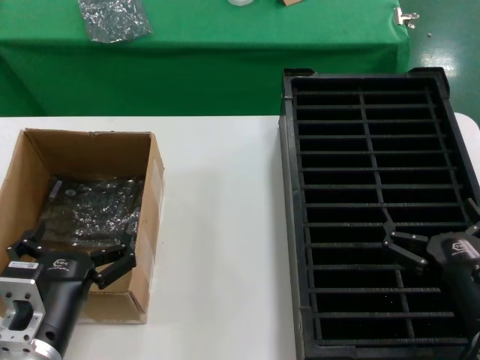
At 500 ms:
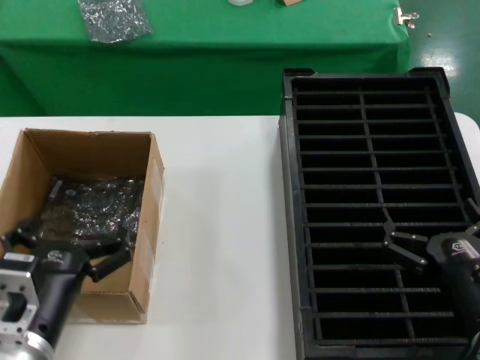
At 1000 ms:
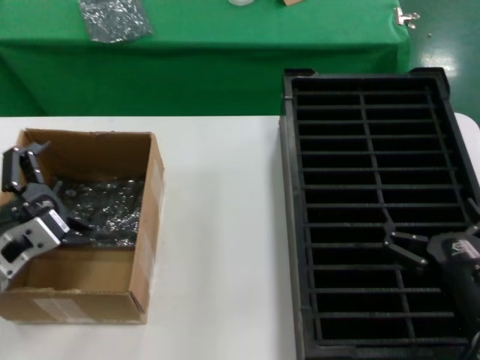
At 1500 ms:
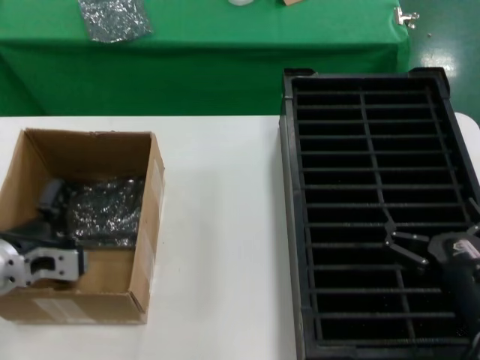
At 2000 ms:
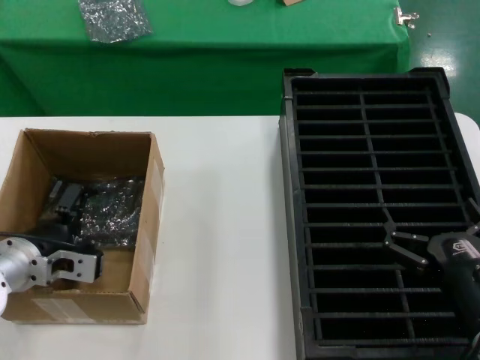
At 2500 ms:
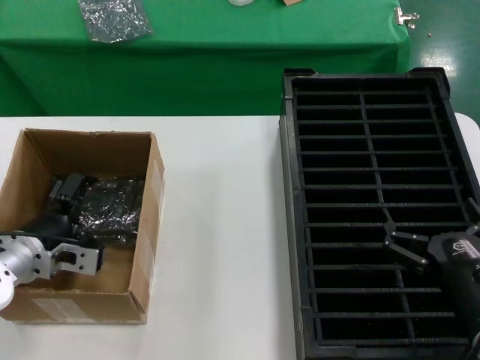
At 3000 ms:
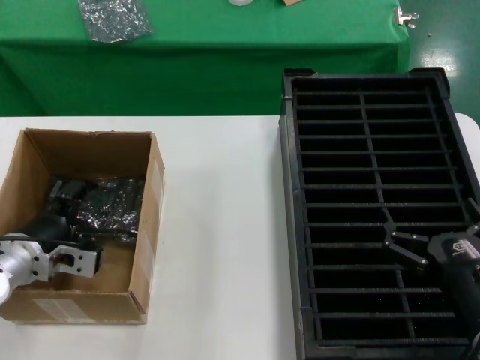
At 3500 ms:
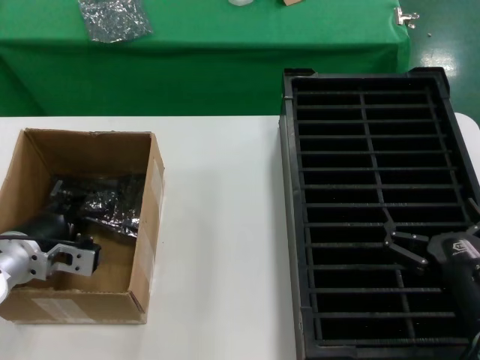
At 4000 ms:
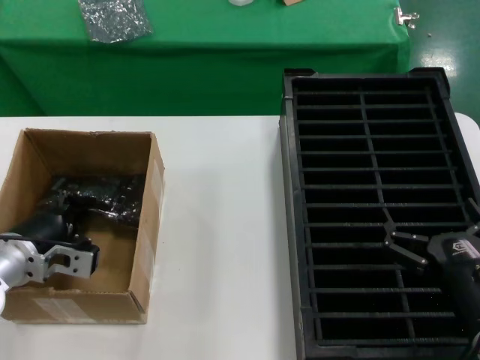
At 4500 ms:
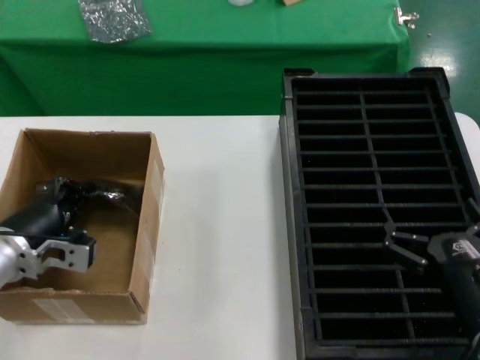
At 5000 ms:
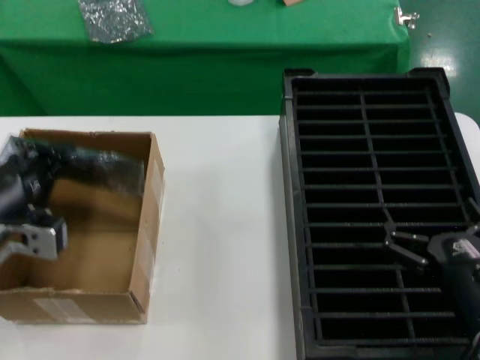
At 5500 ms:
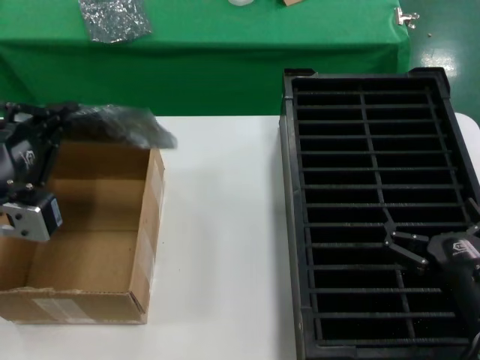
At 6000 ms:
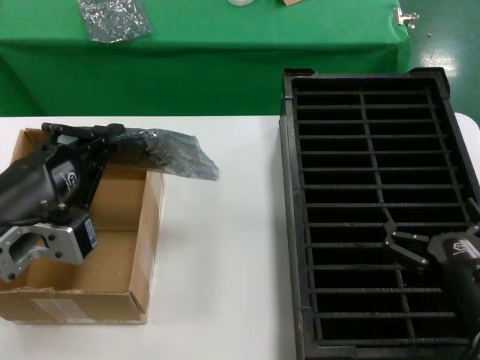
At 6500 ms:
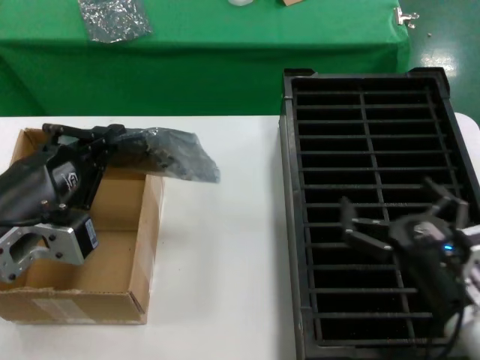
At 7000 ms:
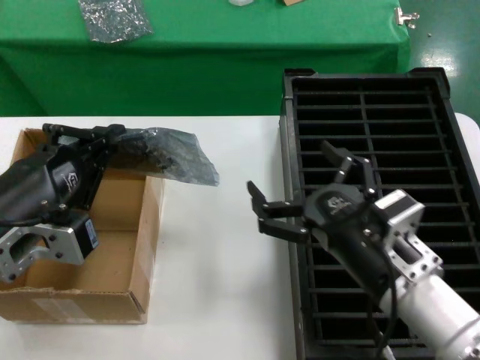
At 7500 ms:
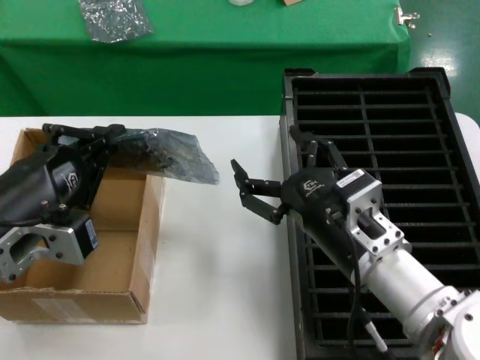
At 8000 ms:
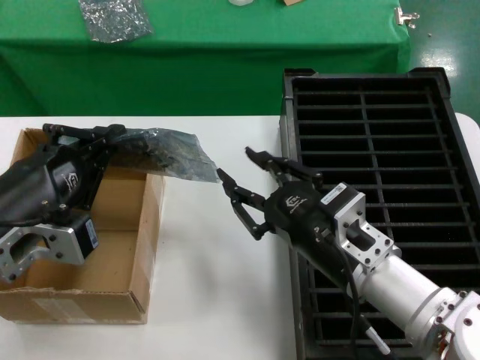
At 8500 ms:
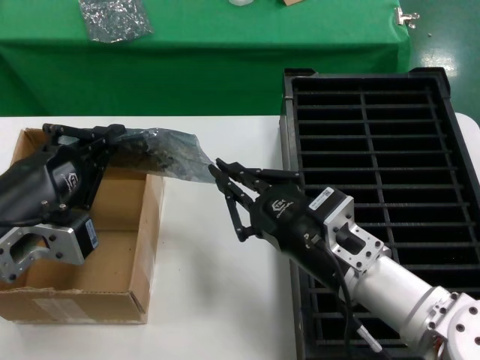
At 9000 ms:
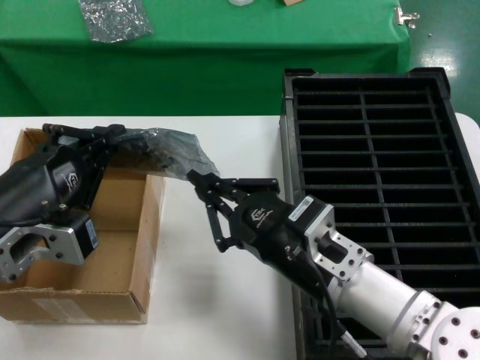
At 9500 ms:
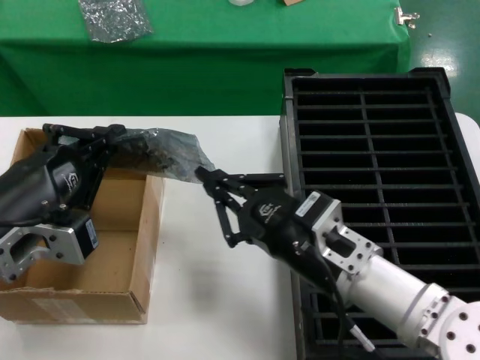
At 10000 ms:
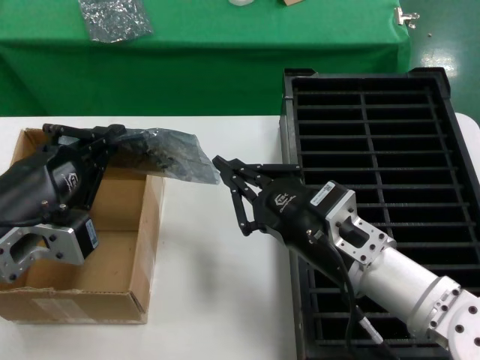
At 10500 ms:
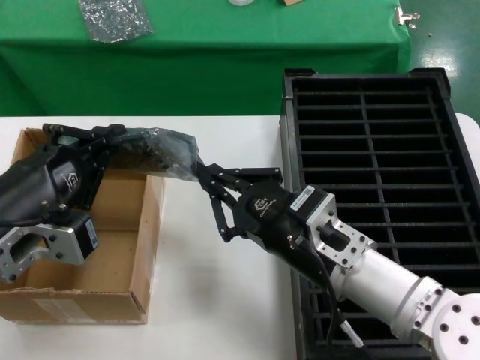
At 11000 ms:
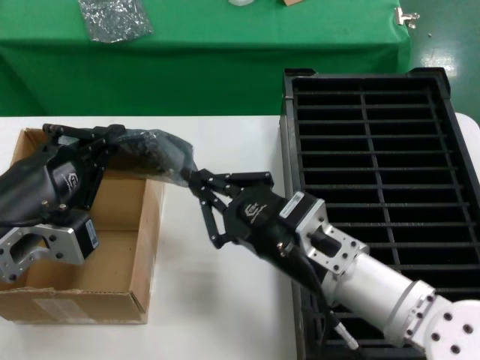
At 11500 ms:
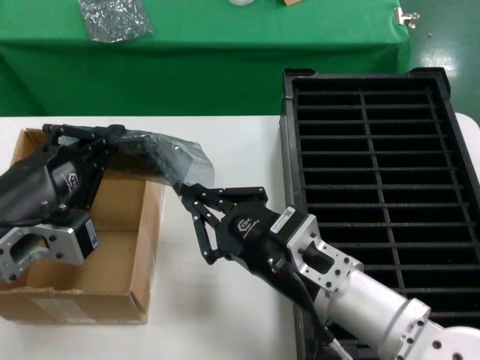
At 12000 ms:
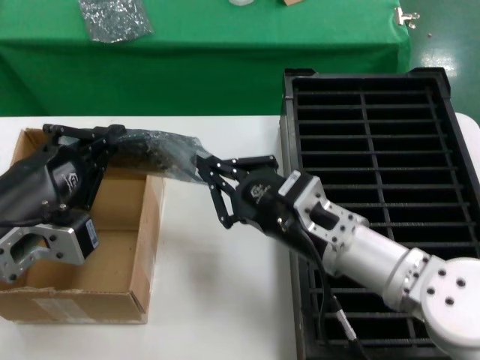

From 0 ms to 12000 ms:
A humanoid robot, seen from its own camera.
Task of the whole recording: take out graphics card from box remove packaging put into black container.
Step, from 0 ms to 4000 ms: Grasp the bag.
Step, from 4500 ms to 6000 ms: Lift the bag.
From 0 ms to 2000 ms: The left hand shifts about 20 cm forward and to the left.
From 2000 ms to 4000 ms: The hands make only small movements.
From 4000 ms to 6000 ms: The left hand moves backward and upward, about 20 cm.
From 6000 ms to 8000 ms: The right hand is displaced to the left, upward and forward by approximately 15 cm.
From 8000 ms to 12000 ms: The hands stay close to where they were, moving slightly.

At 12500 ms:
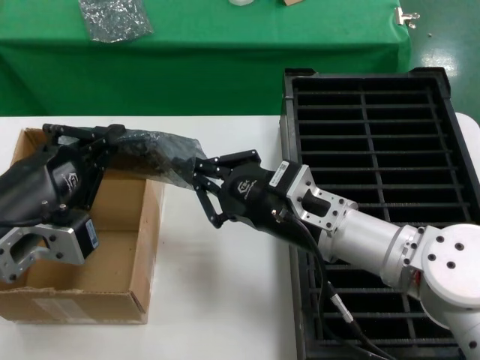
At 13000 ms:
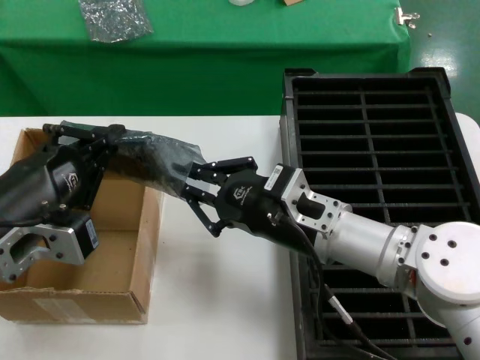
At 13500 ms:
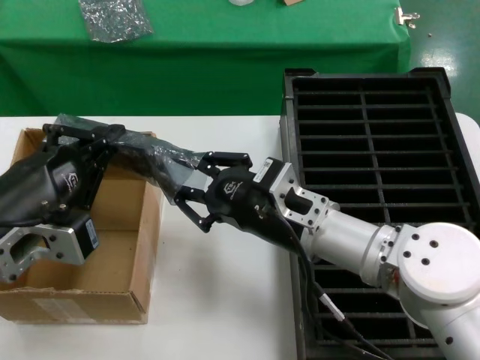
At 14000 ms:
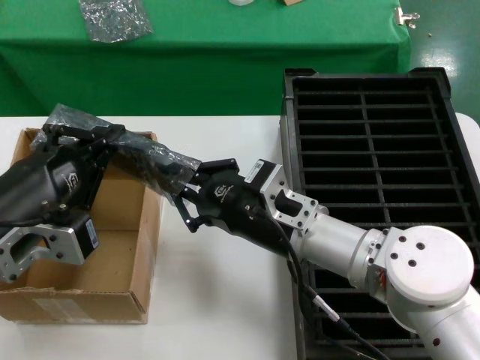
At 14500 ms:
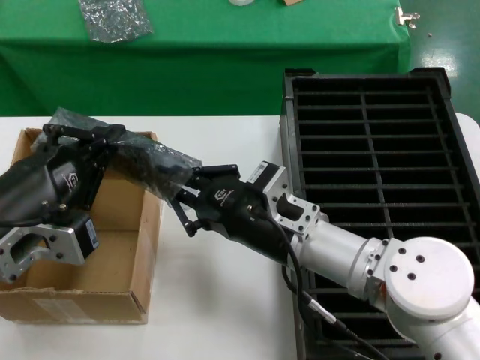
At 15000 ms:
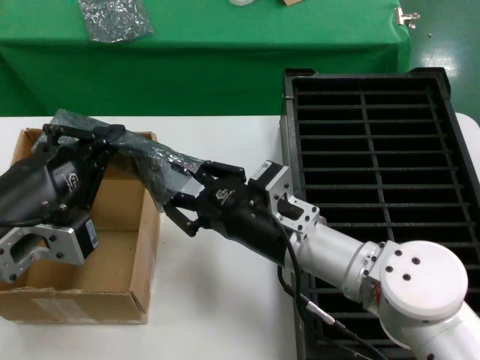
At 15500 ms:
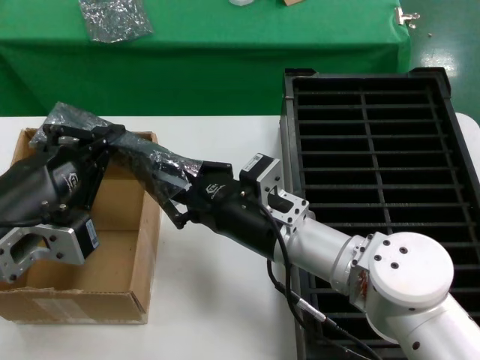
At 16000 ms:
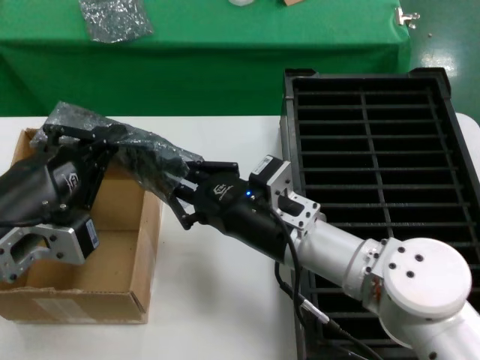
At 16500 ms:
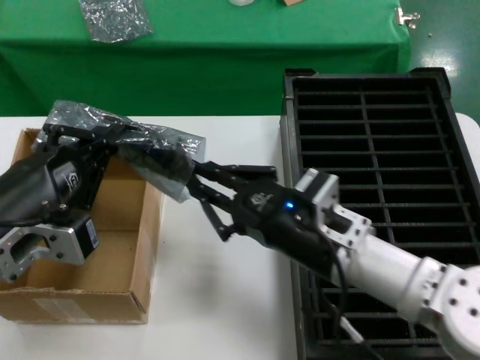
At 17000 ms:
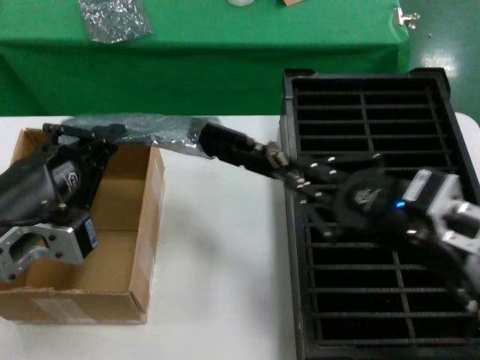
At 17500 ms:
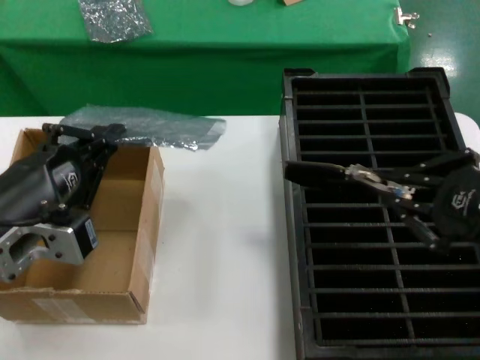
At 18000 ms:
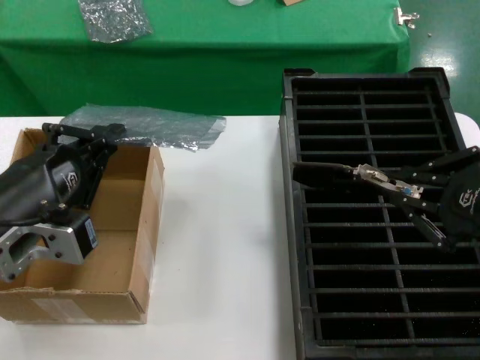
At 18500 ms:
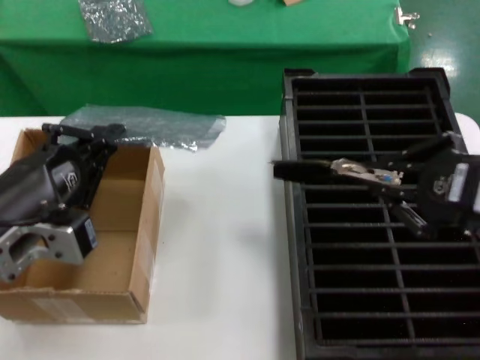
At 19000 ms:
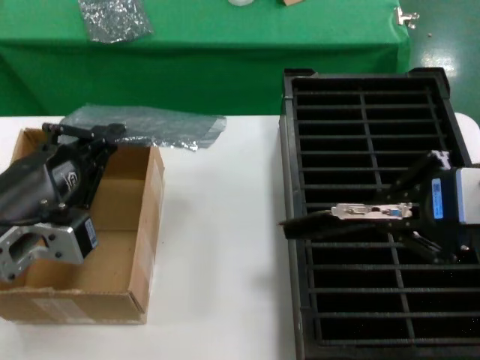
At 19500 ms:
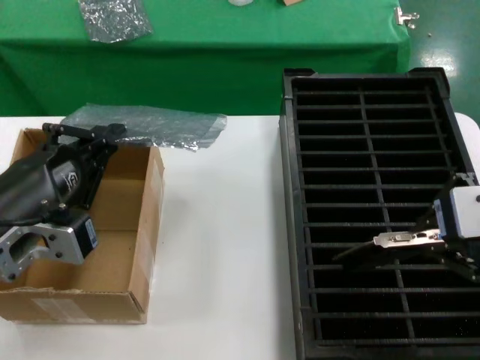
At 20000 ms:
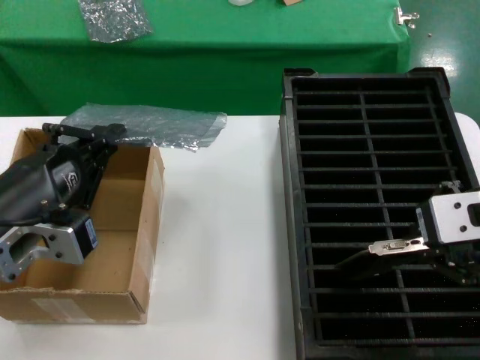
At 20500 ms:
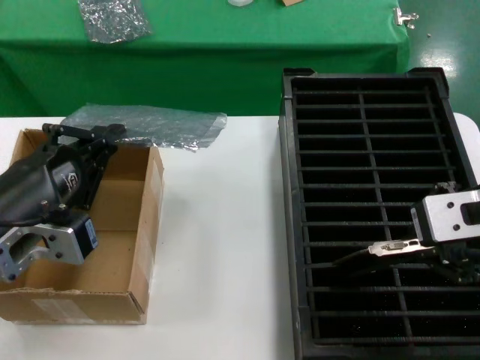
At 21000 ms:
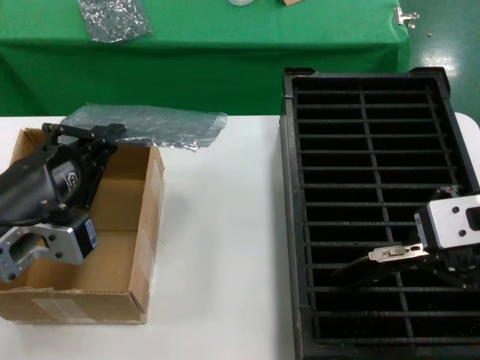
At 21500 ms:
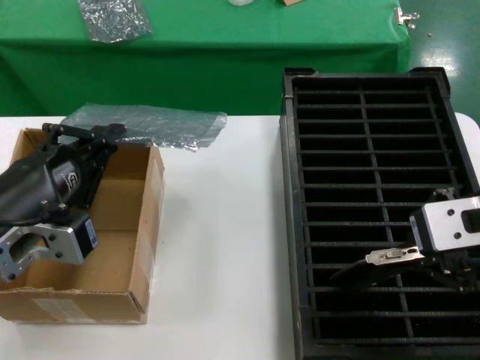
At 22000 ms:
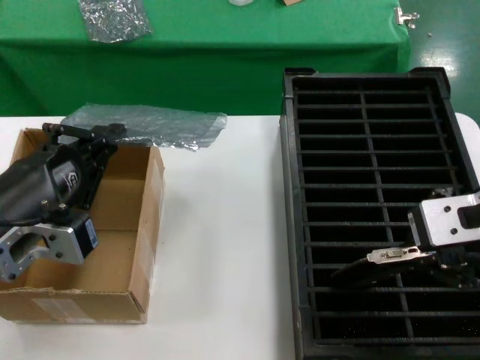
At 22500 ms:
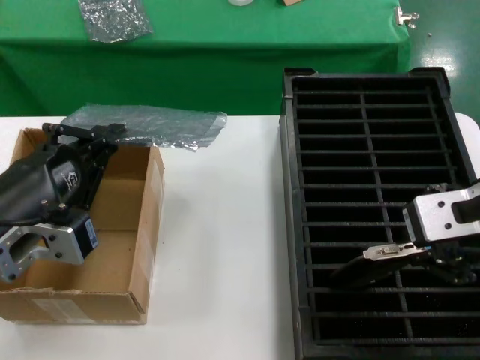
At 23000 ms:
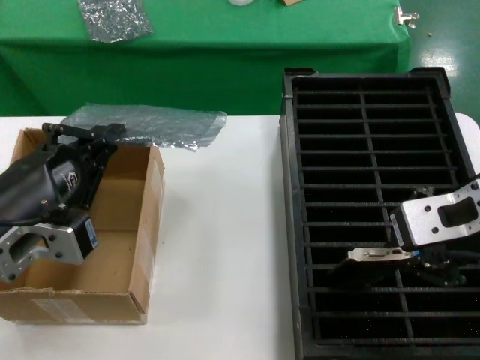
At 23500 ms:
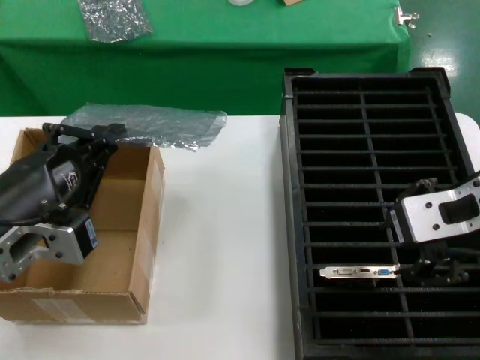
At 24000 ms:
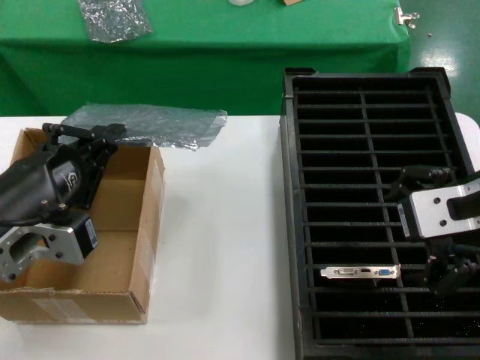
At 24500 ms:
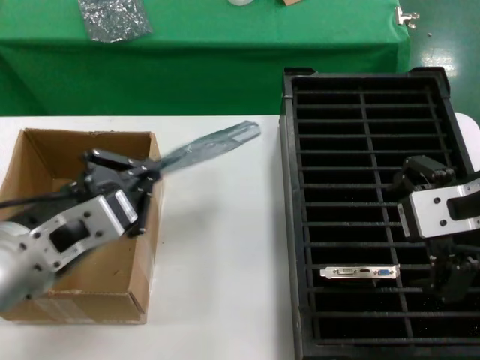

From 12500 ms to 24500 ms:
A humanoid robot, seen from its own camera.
Task of the whole recording: take out graphics card from box remove packaging put into black container.
Step, from 12500 ms to 17000 ms: Take out the hard disk of the bag.
Step, from 17500 ms to 23000 ms: Place the hard disk in the hard disk enclosure.
From 12500 ms to 14500 ms: The hands move only a little.
From 14500 ms to 16500 ms: The right hand changes place by approximately 5 cm.
From 16500 ms to 18500 ms: The right hand travels upward, to the right and backward by some 25 cm.
From 18500 ms to 20500 ms: The right hand ends up about 5 cm from where it was.
From 20500 ms to 22500 ms: The hands stay close to where they were, moving slightly.

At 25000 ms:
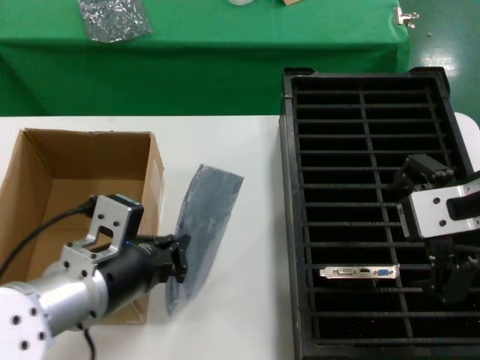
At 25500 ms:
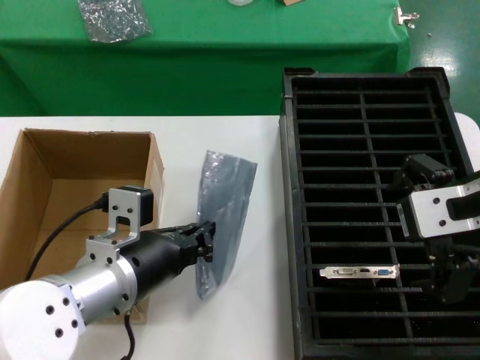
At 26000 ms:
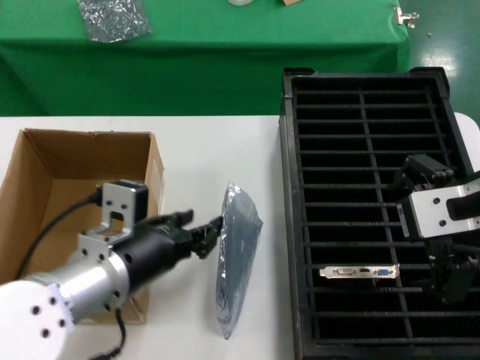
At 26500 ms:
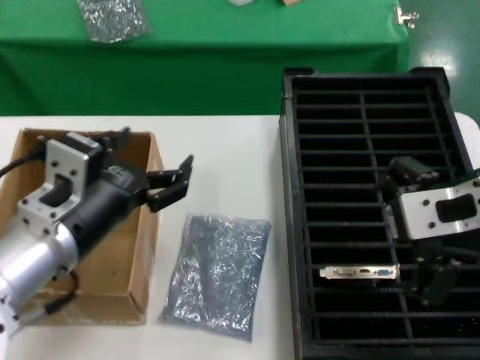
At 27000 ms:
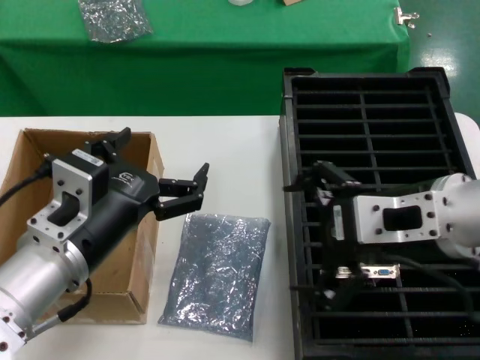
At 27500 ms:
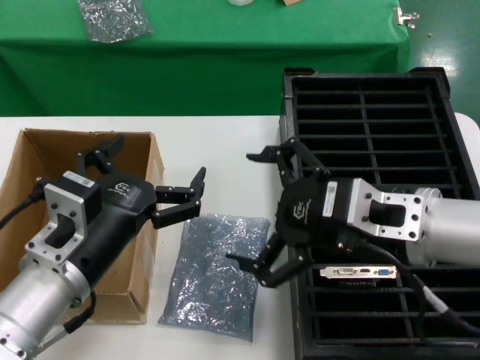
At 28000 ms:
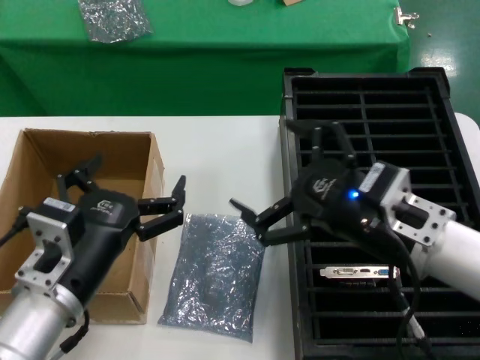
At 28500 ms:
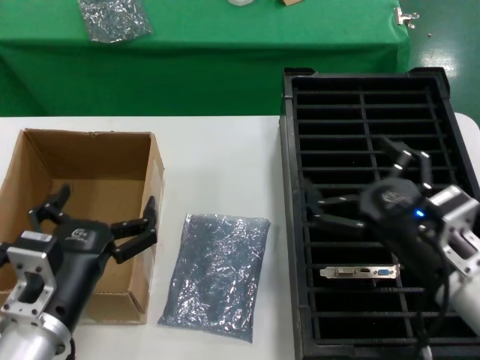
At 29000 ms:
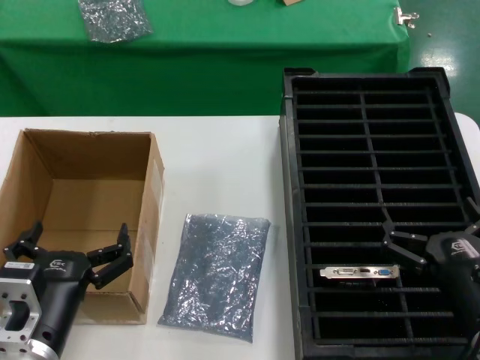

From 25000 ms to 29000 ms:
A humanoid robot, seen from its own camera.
Task of the whole recording: take out graphics card from box remove packaging put into black container.
From 25000 ms to 27000 ms: The right hand changes place by some 5 cm.
From 27000 ms to 29000 ms: The right hand travels downward by about 25 cm, while the left hand travels downward by some 15 cm.
